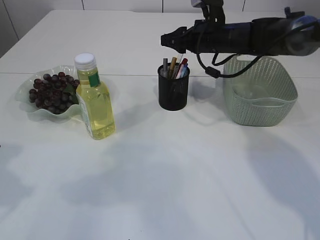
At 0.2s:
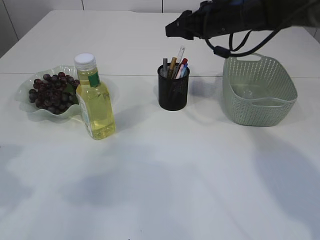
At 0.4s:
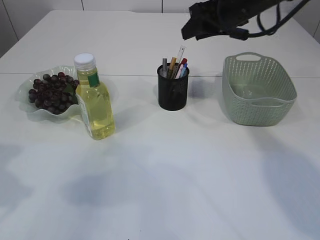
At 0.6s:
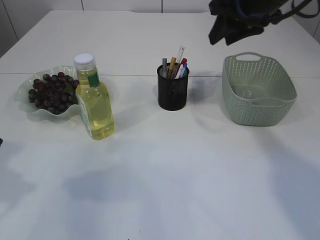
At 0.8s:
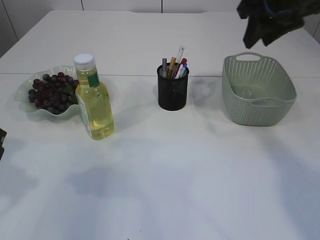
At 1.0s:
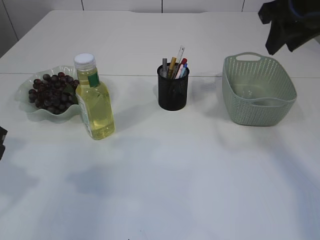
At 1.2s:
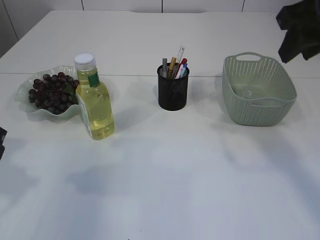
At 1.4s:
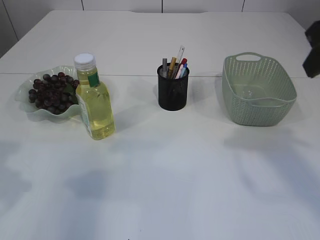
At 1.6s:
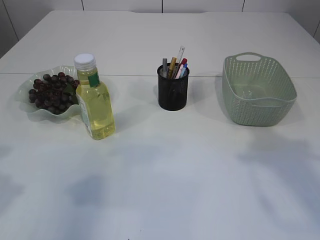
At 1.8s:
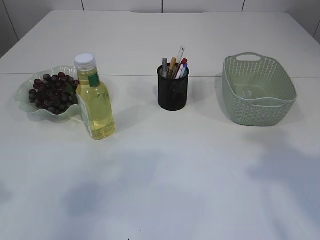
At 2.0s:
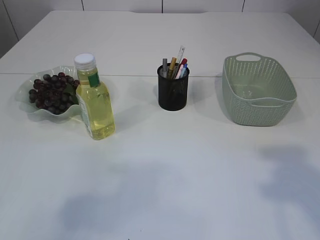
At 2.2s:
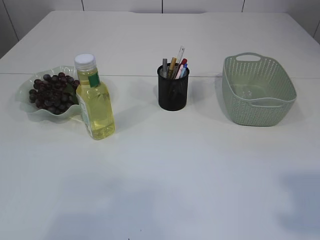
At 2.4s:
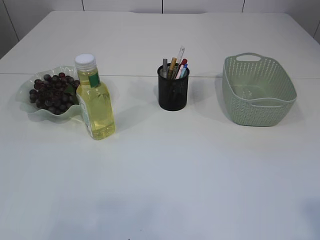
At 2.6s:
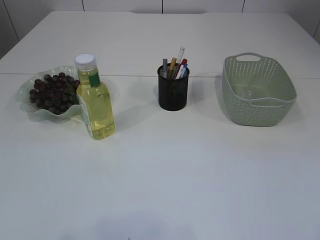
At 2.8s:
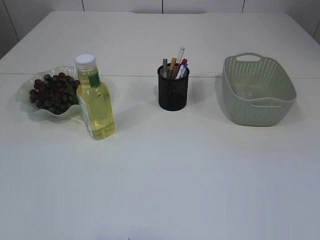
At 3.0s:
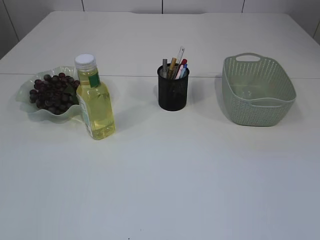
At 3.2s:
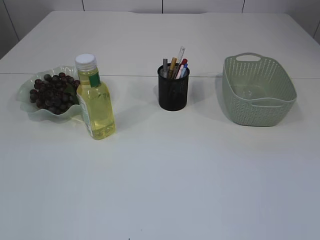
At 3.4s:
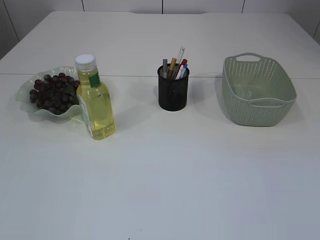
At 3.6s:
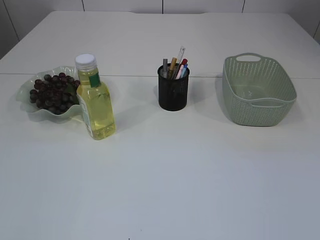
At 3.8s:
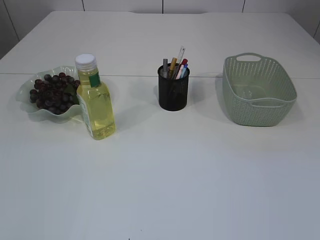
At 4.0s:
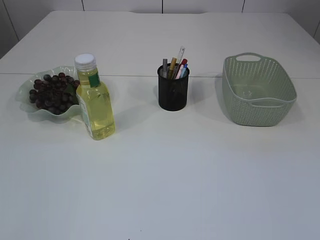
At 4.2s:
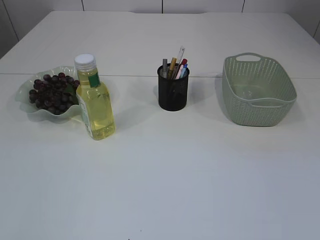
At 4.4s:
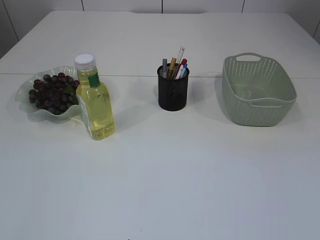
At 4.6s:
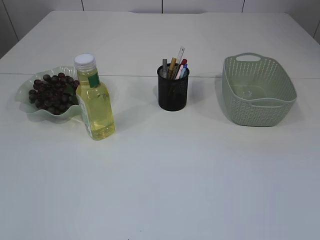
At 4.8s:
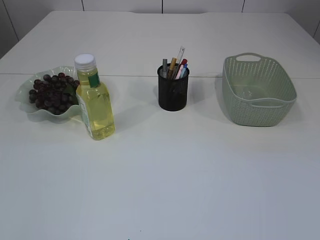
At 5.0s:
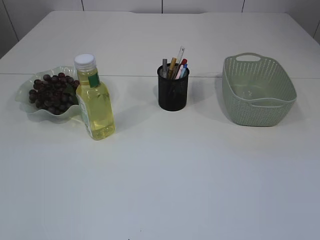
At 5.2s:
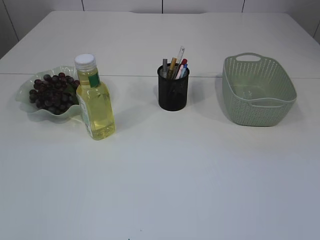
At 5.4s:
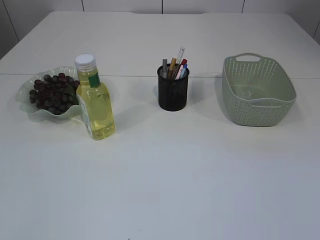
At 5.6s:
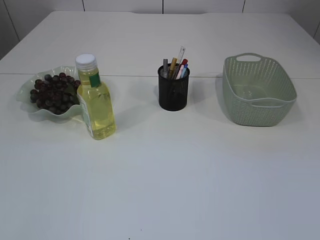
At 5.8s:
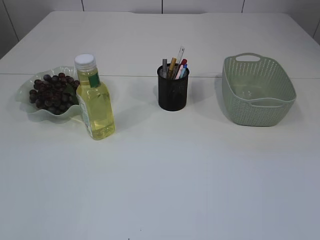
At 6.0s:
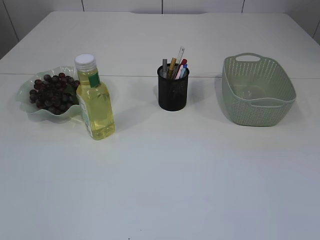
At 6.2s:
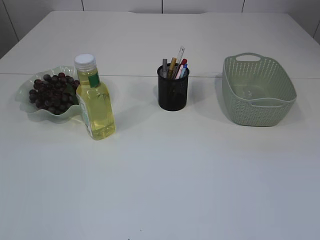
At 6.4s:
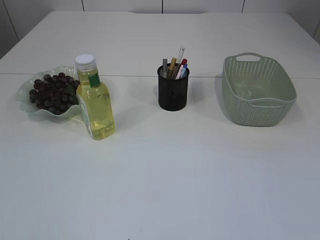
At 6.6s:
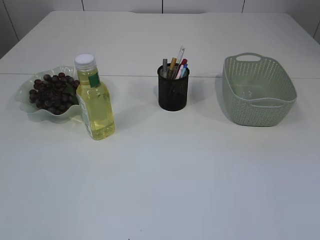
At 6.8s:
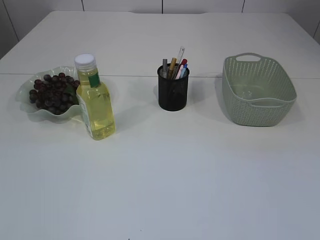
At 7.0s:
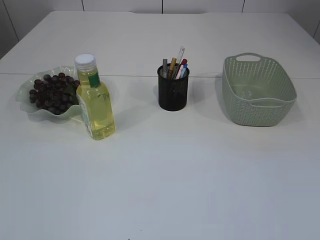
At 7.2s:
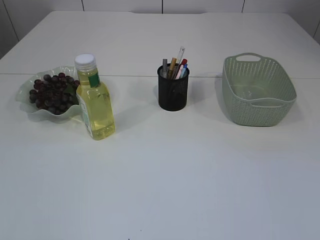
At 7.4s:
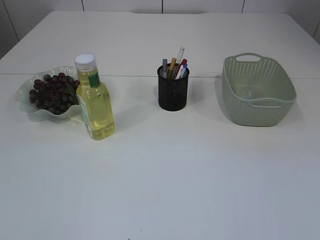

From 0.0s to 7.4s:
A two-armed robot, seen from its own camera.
From 0.0s to 1.4s: The right gripper shifts about 30 cm backward and upward.
From 1.4s to 3.0s: The grippers both shift backward by roughly 25 cm. The left gripper opens its fingers.
